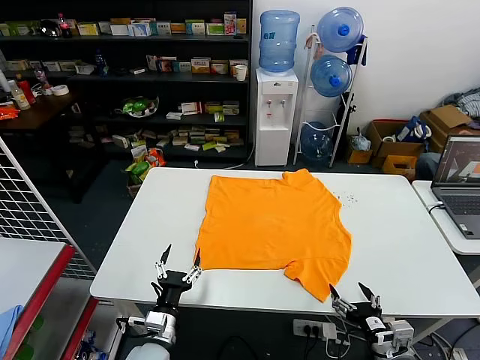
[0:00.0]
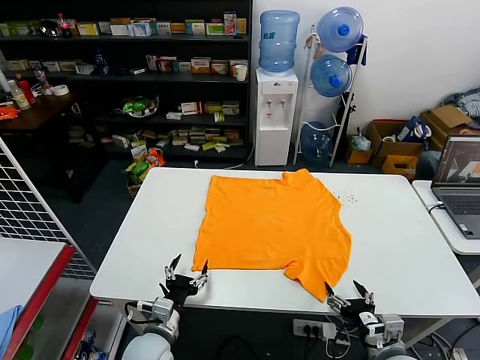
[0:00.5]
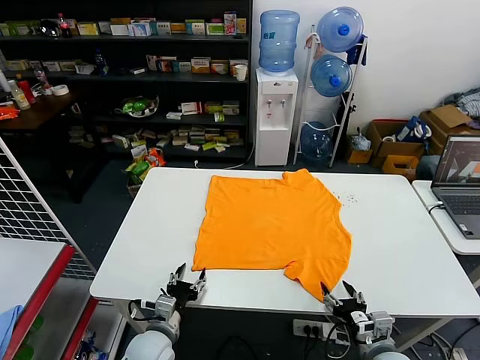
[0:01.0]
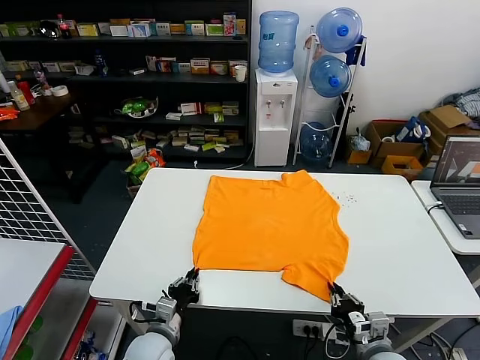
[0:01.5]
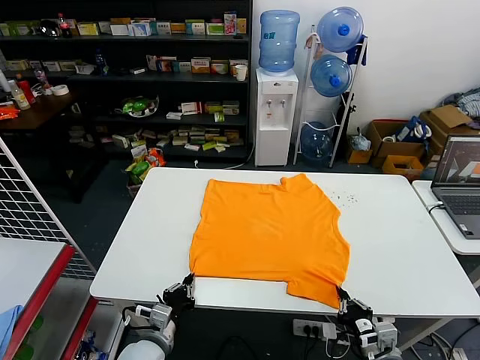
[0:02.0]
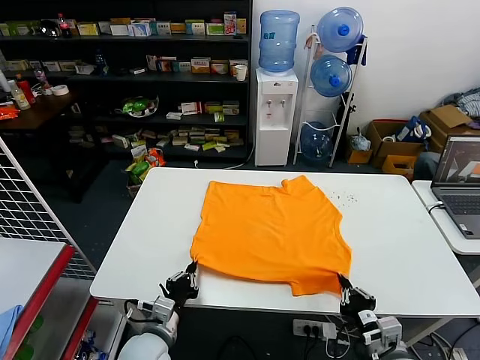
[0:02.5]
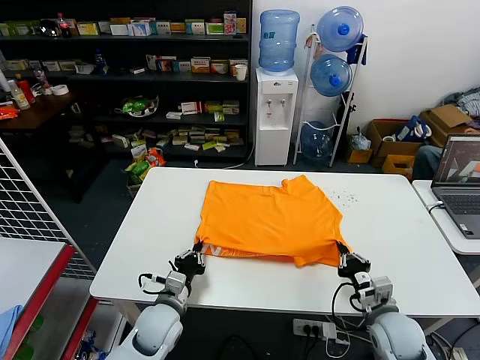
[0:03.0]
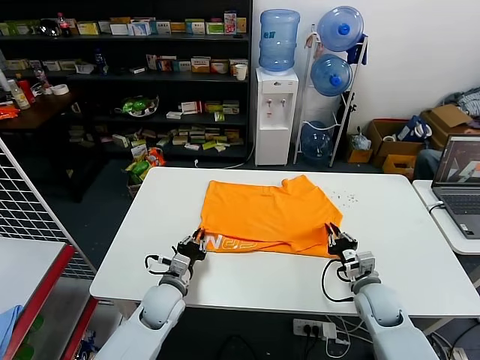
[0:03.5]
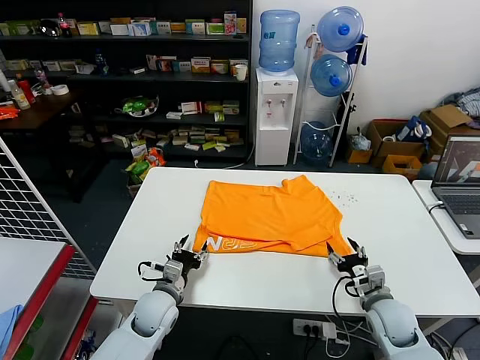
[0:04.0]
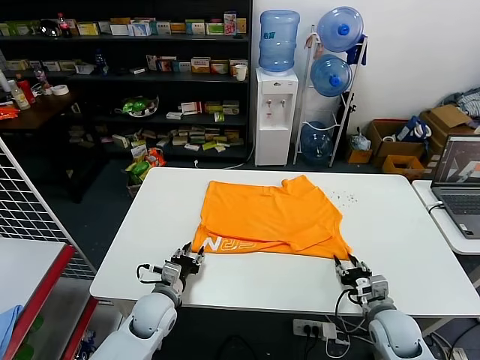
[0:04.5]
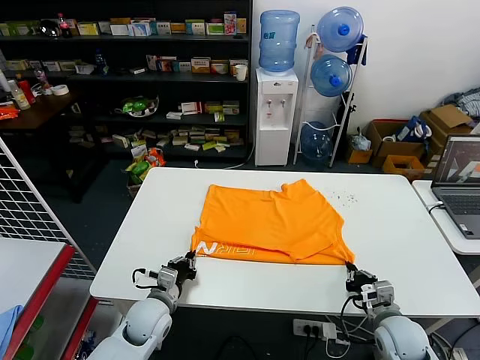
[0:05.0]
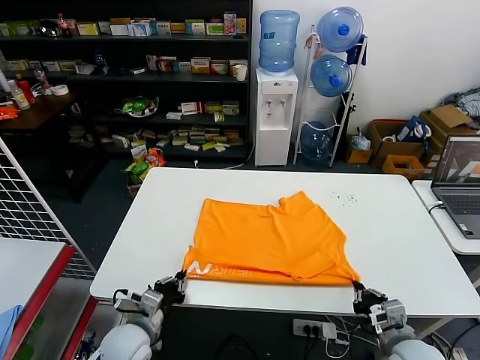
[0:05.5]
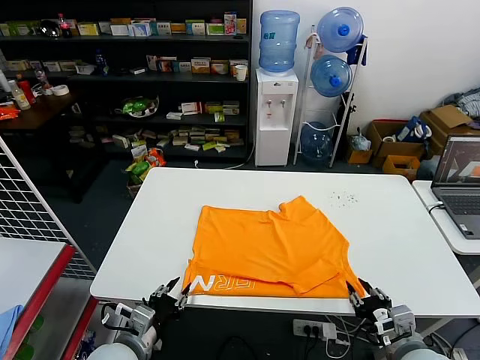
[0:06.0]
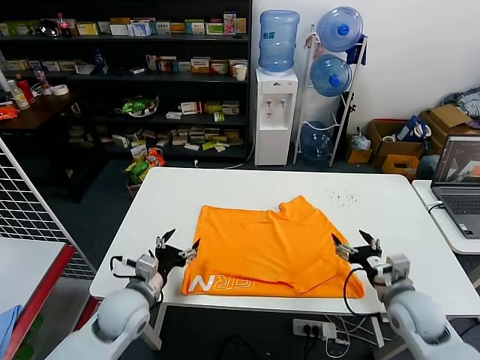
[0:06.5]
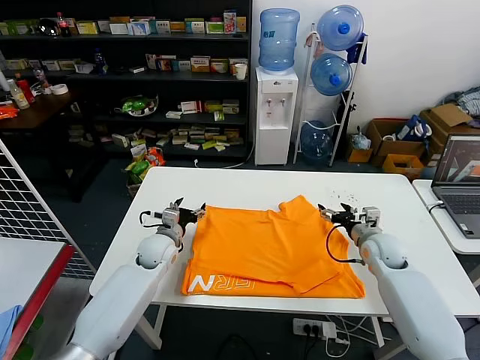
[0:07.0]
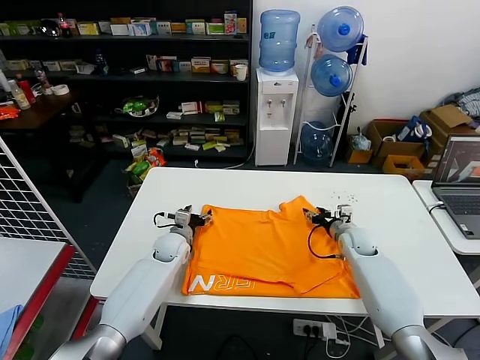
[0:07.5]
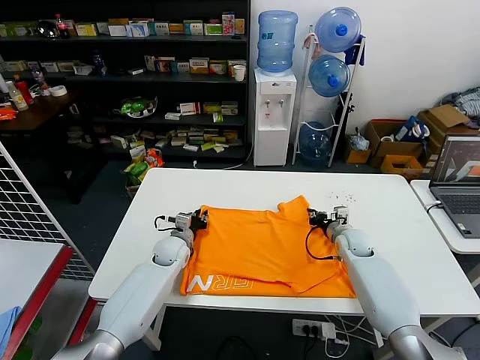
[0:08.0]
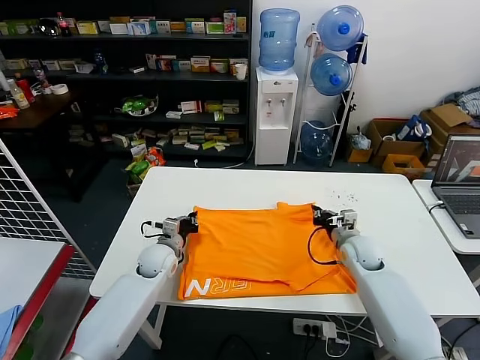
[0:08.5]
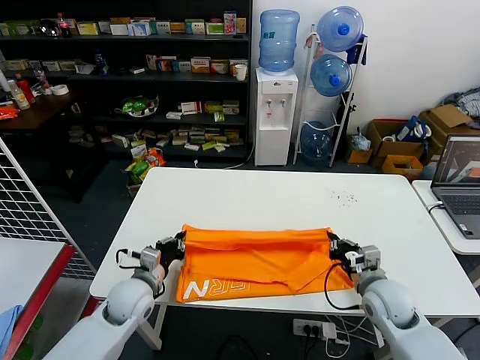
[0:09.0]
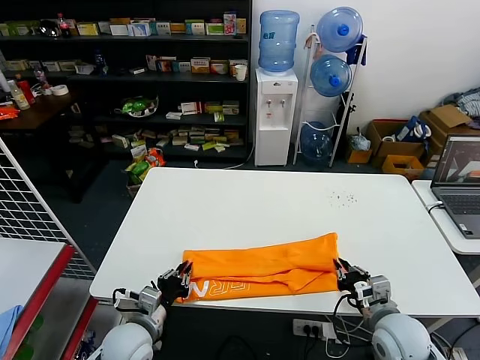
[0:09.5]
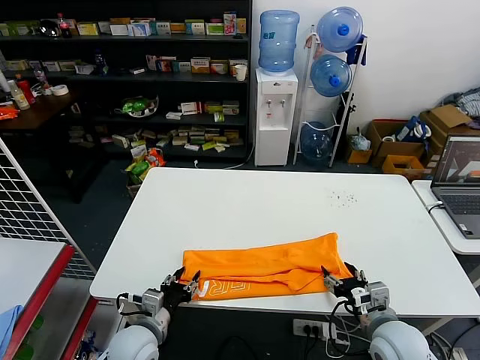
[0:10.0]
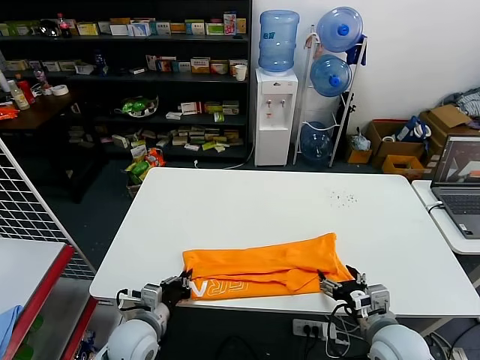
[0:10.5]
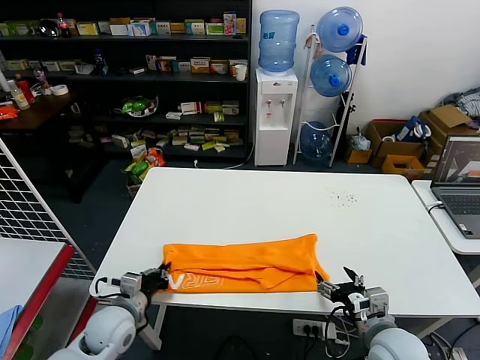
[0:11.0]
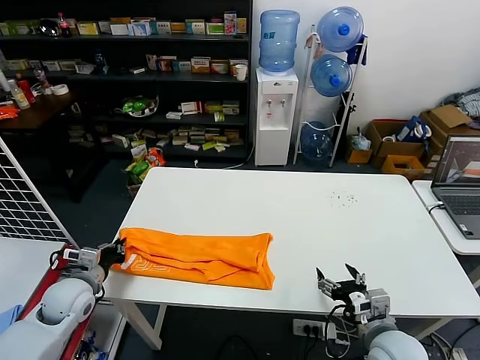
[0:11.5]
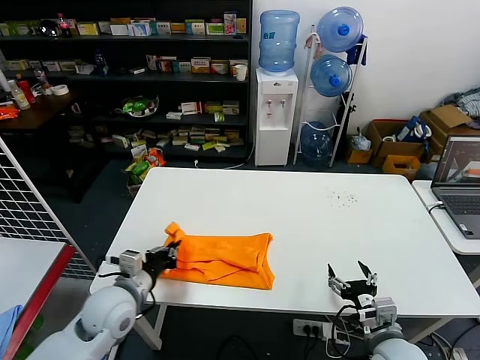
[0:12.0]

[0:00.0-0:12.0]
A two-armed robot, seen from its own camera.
Task of the whole recording: fold and organize the clothes.
Step, 0:00.0 to 0:01.5: use both grippers simultaneously to clamp the lower edge of the clothing fabric.
Step, 0:02.0 to 0:03.5: use both grippers to drag the lower edge of the fabric forward and fold it over the upper edge.
Step, 0:04.0 to 0:05.5: Drag the clothes downward with both gripper.
Step, 0:06.0 to 0:08.0: use both grippers simultaneously to clamp the upper edge of the clothing fabric.
Step, 0:08.5 to 0:09.5: use both grippers to drag the upper edge of the fabric backward and fold it over the lower edge.
Step, 0:10.0 to 0:10.5: use the left gripper to clamp the left edge of the fabric.
0:02.0 to 0:04.0: Both grippers travel together forward, some 10 cm. The left gripper opens. The right gripper opens up.
0:04.0 to 0:06.0: The two grippers go about 15 cm backward and upward. The right gripper closes. Meanwhile the left gripper closes, then opens again.
0:06.0 to 0:08.0: Both grippers travel together forward, approximately 30 cm. The left gripper opens and closes again. The right gripper closes up.
0:08.0 to 0:10.0: Both grippers move backward, about 25 cm. The right gripper opens up, while the left gripper closes, then opens again.
0:10.0 to 0:12.0: The left gripper goes roughly 10 cm upward, reaches roughly 15 cm to the left, then returns, and closes.

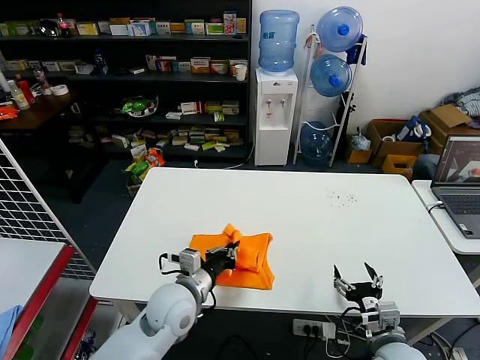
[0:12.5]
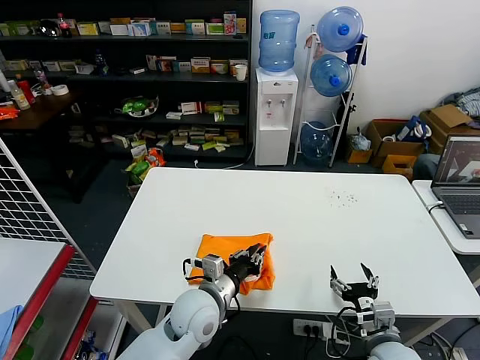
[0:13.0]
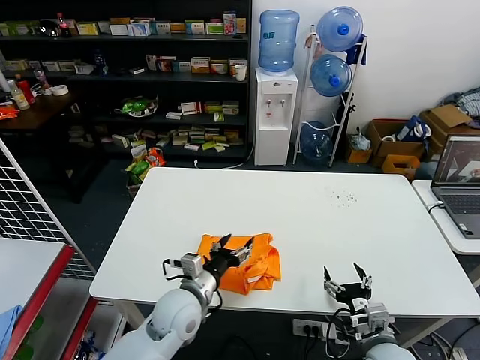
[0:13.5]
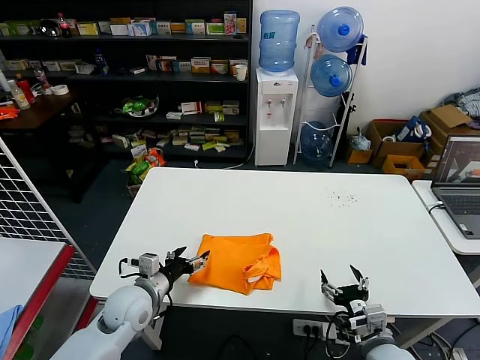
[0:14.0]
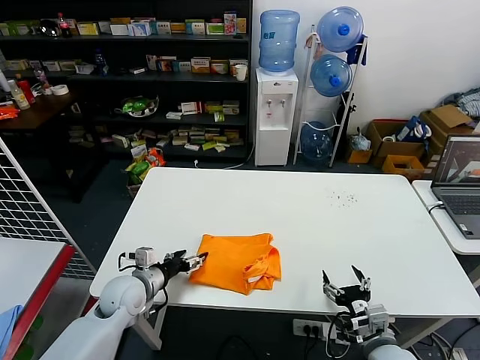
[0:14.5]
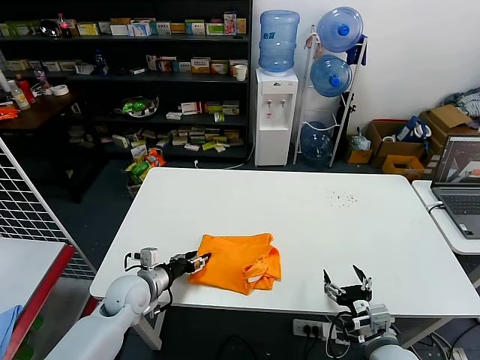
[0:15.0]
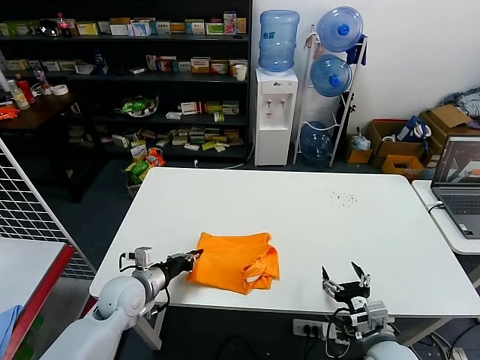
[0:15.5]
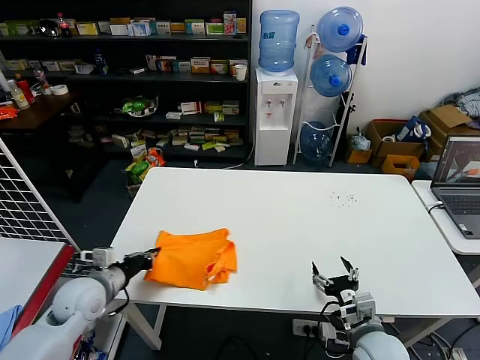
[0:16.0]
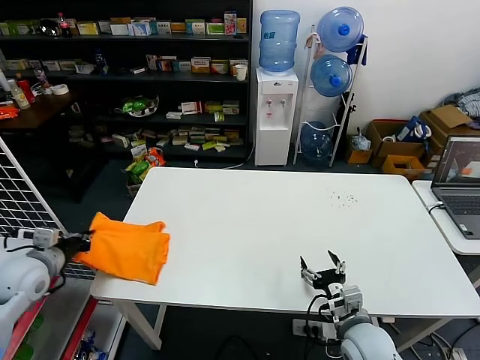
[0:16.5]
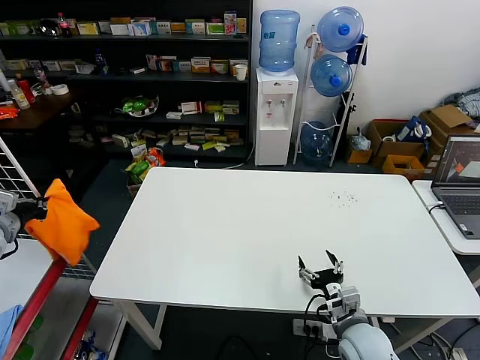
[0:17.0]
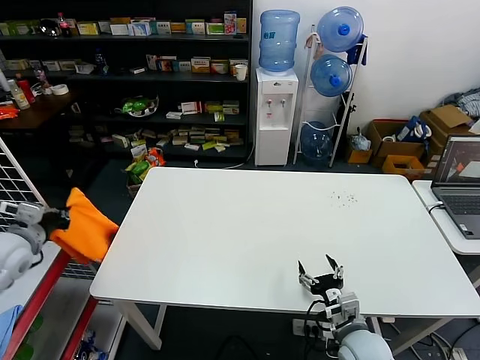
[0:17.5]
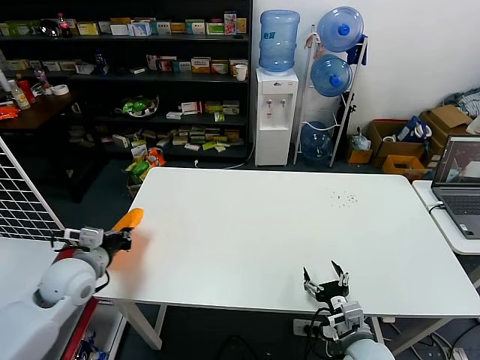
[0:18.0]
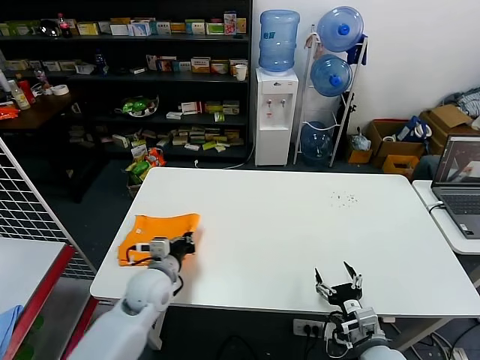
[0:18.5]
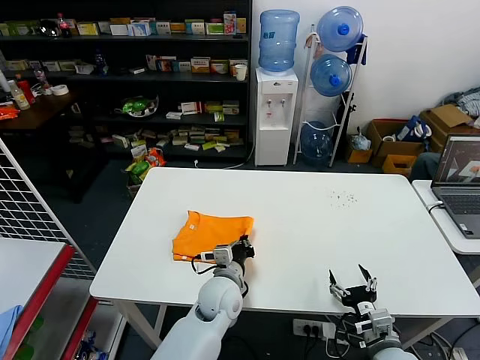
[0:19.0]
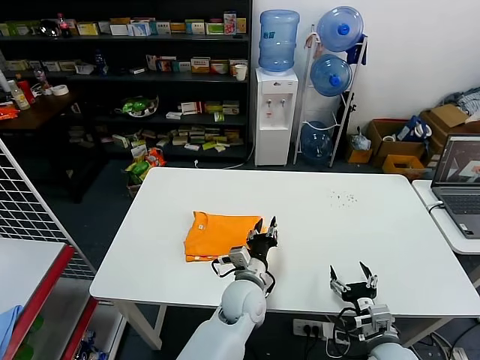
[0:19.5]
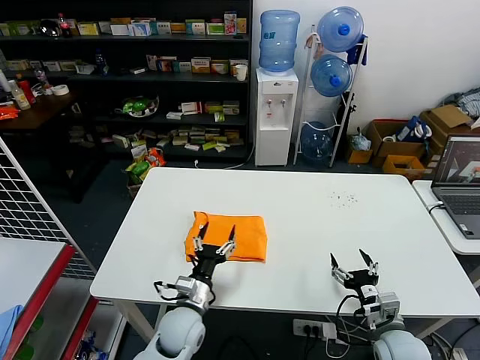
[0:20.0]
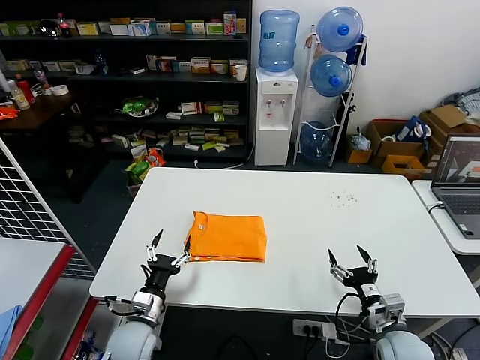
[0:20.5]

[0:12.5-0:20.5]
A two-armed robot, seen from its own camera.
Task of the whole recording: fold and organize the clothes.
Step, 0:13.0 to 0:19.0: Flip the folded clothes over with left gripper.
0:12.5 to 0:14.5: The left gripper is displaced to the left by about 10 cm, and opens its fingers.
0:14.5 to 0:16.5: The right gripper changes place by about 5 cm. The left gripper shifts roughly 20 cm to the left and upward, and closes up.
0:16.5 to 0:18.5: The left gripper goes some 20 cm to the right.
0:18.5 to 0:20.5: The right gripper changes place by about 5 cm. The left gripper moves downward and backward, approximately 10 cm, reaches some 25 cm to the right, then returns, and opens.
